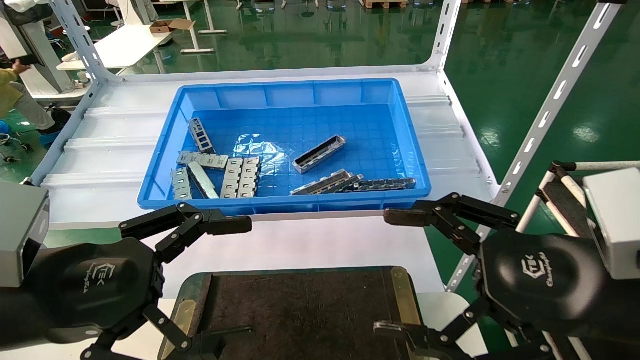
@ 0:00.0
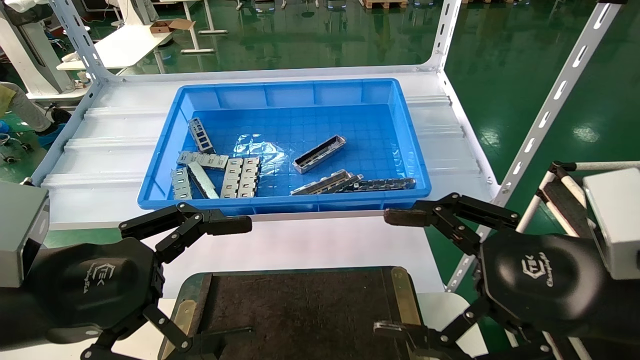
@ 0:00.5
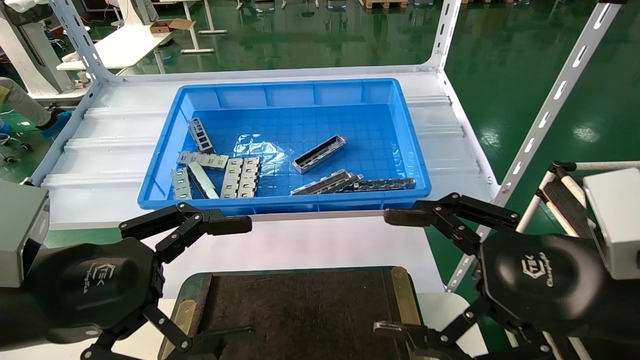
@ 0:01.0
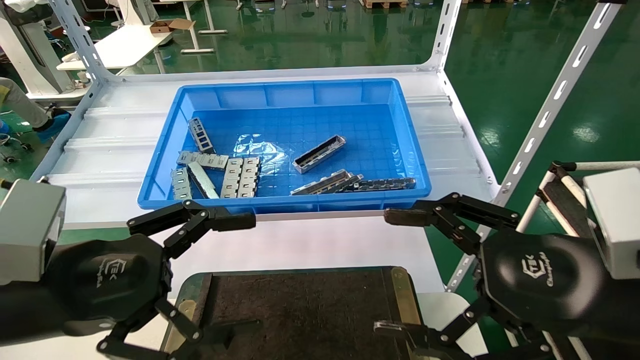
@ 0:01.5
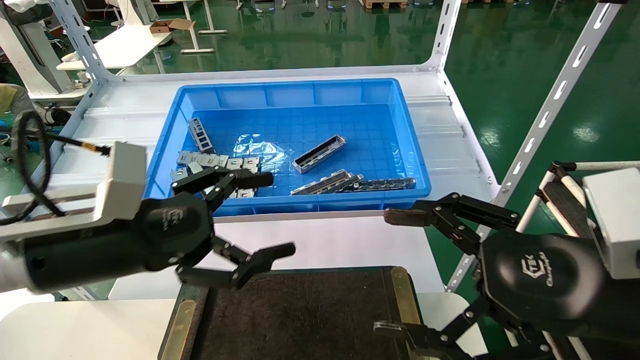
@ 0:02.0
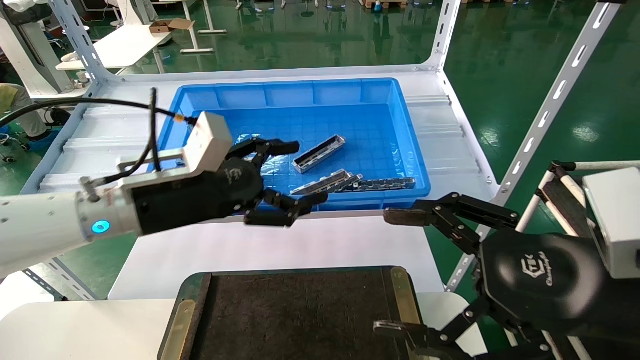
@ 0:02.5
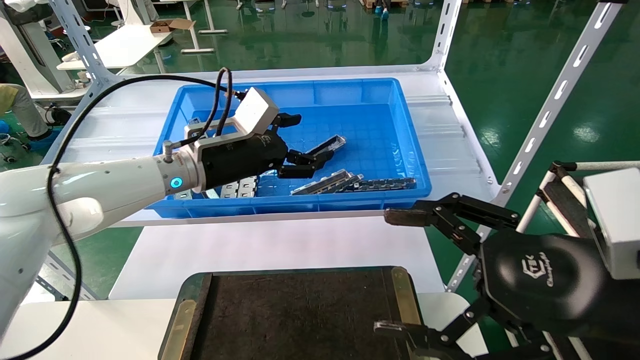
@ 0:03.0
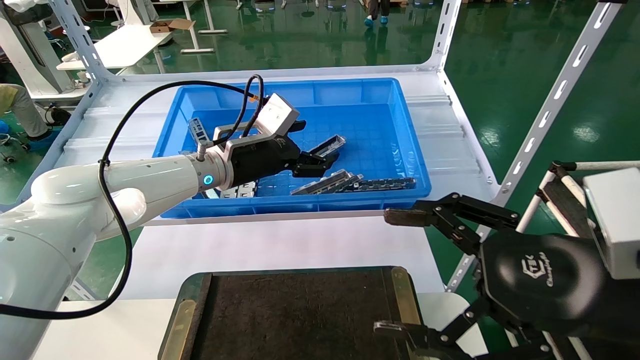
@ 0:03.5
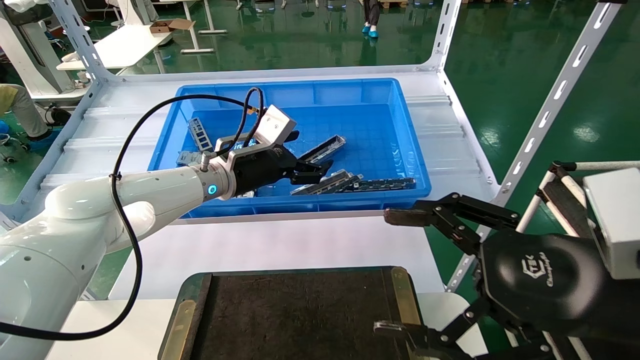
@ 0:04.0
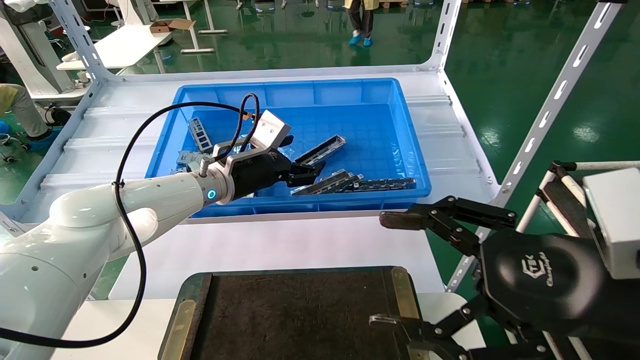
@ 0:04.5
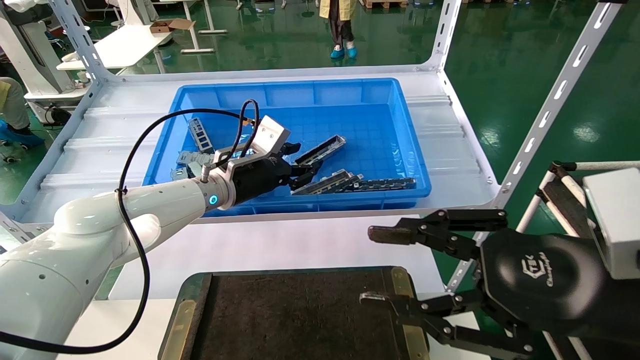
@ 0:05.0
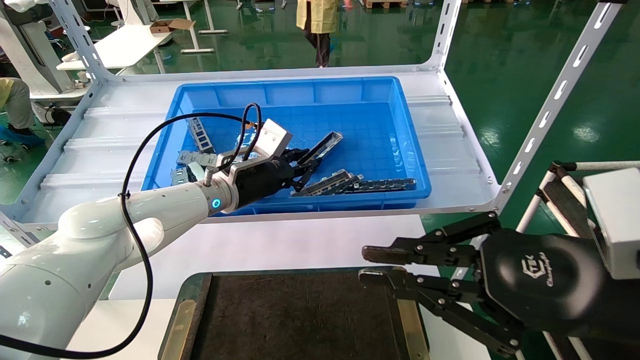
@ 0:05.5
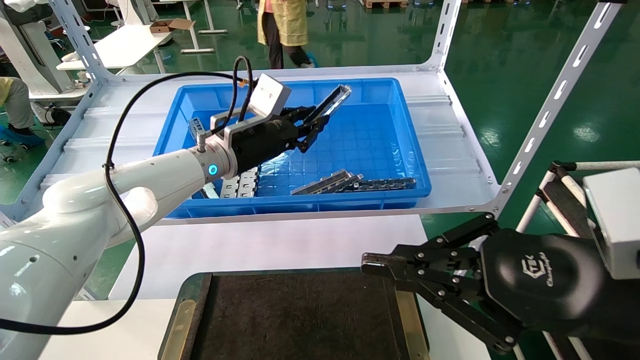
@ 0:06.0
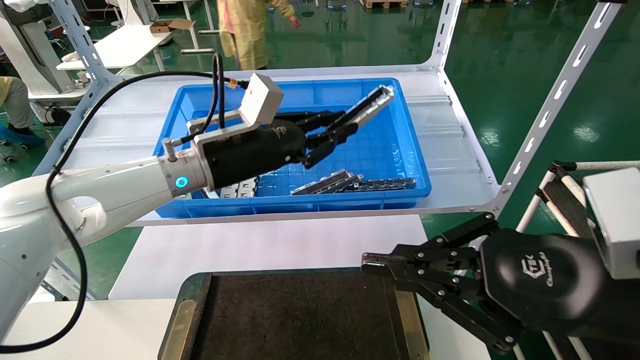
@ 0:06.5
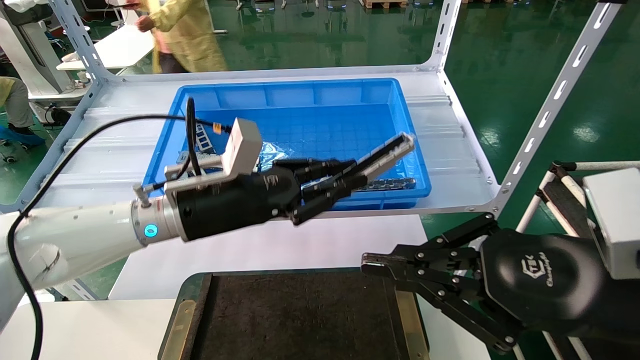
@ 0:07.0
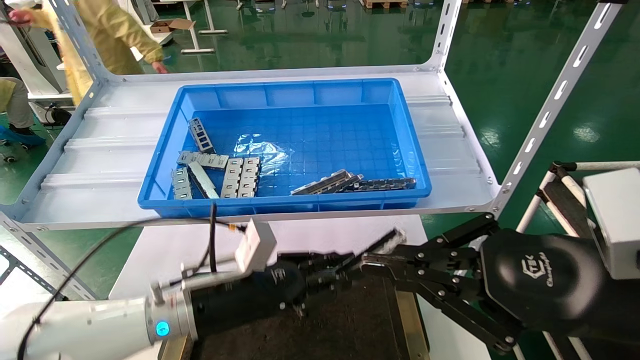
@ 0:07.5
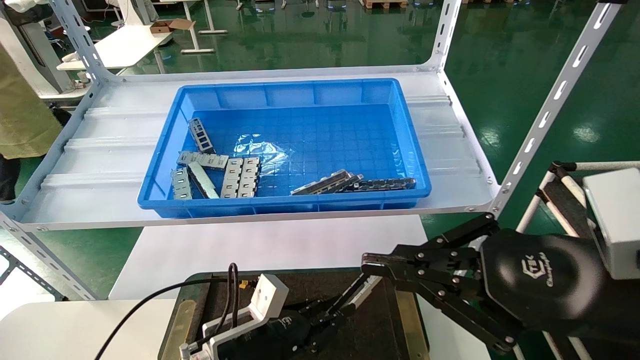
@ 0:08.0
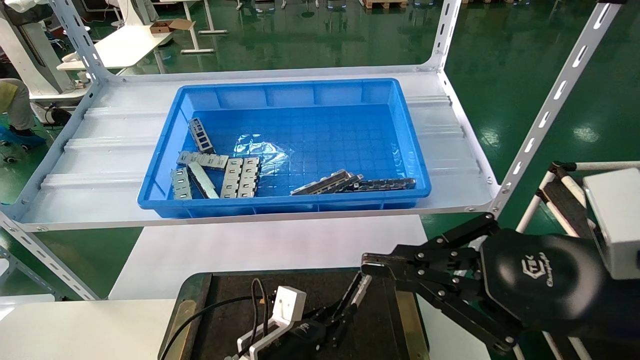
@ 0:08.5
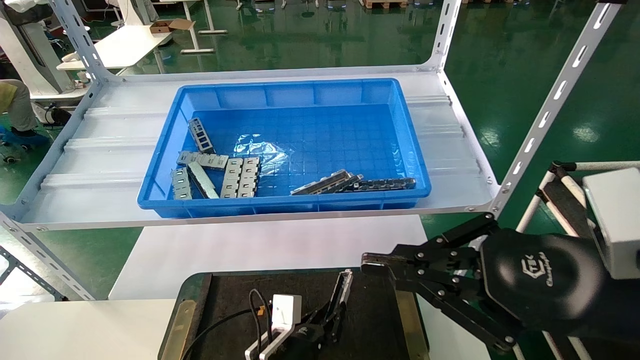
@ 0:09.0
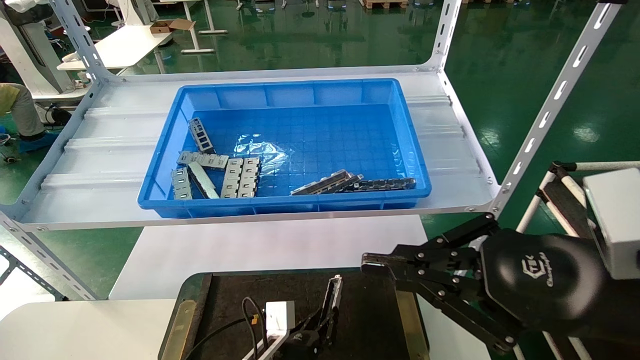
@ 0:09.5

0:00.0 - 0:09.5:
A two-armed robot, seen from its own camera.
Task of the whole recording: Grasp the part with one hand and place it on the black container.
Step, 0:02.5 - 0:06.5: Pick up the front USB bracket from the feeding area.
0:00.0 - 0:02.0: The left gripper travels forward by approximately 5 cm.
0:02.0 - 0:04.0: The left gripper shifts some 25 cm forward and to the right.
0:04.0 - 0:05.5: The right gripper closes its fingers. The left gripper closes up.
0:05.5 - 0:07.5: The left gripper heads backward and downward, covering roughly 20 cm.
0:07.5 - 0:09.5: The left gripper heads downward and to the right, covering approximately 20 cm.

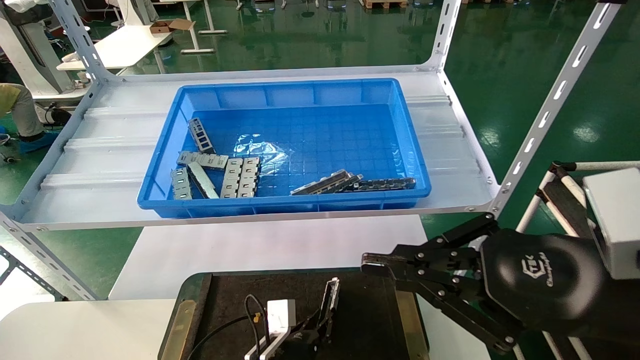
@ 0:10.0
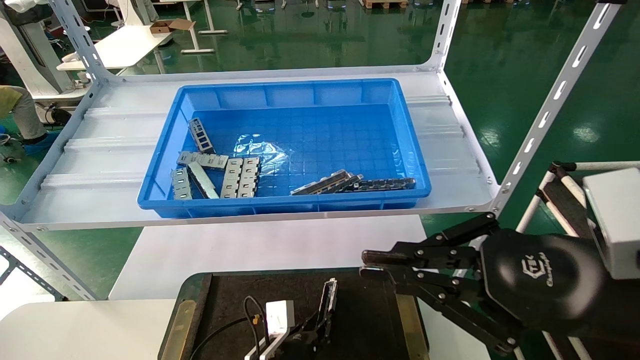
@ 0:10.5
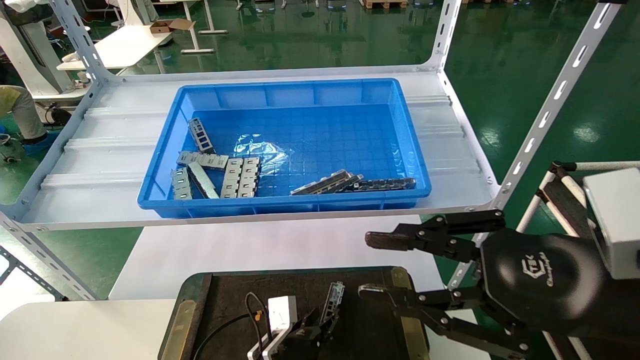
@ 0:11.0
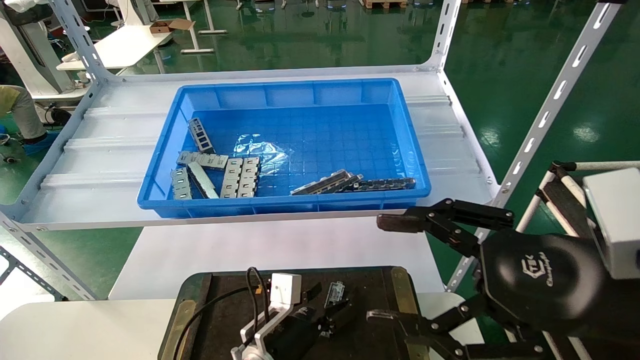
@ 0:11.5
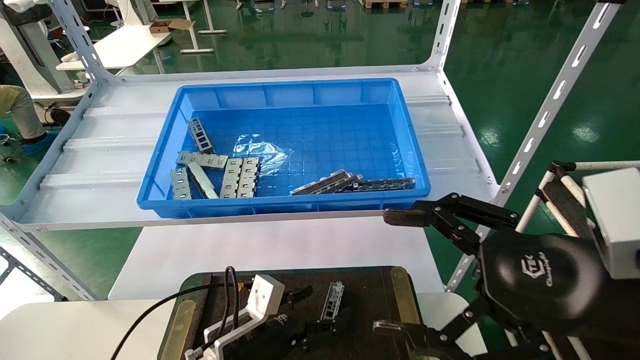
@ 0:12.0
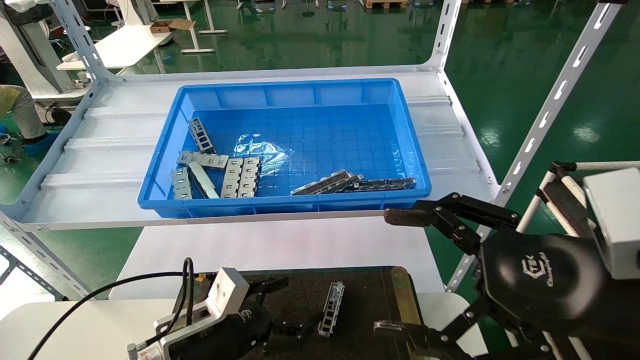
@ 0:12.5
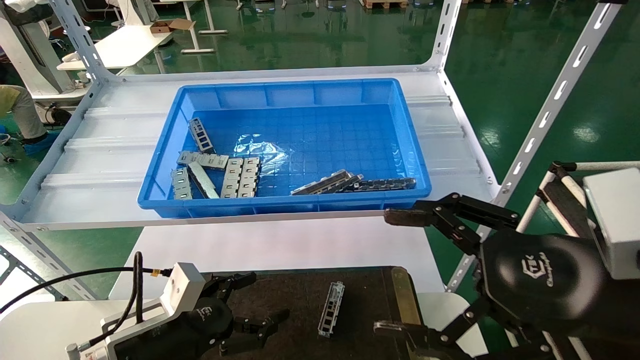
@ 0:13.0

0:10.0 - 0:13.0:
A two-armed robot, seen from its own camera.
Task of the whole recording: Grasp the part with one hand and place it on the black container.
0:10.0 - 0:11.5: The left gripper shifts about 5 cm upward, and opens, while the right gripper opens.
0:11.5 - 0:13.0: The left gripper heads to the left, upward and backward, covering some 20 cm.
